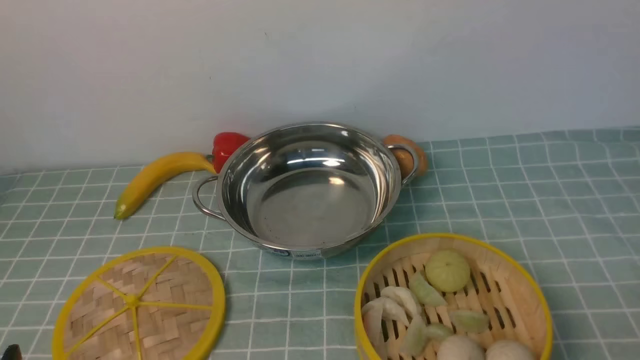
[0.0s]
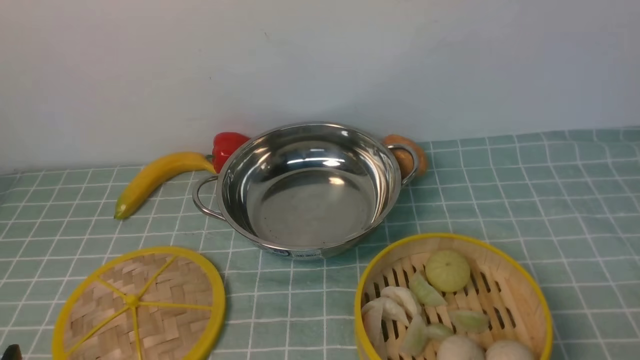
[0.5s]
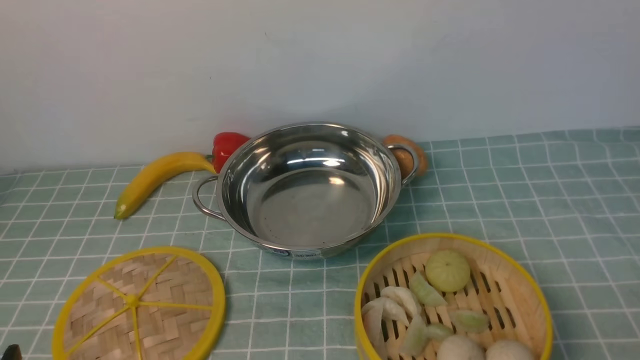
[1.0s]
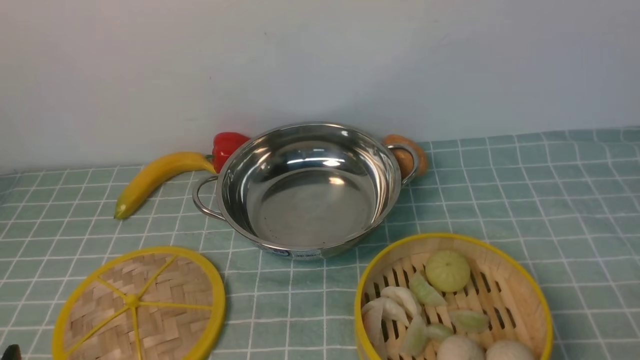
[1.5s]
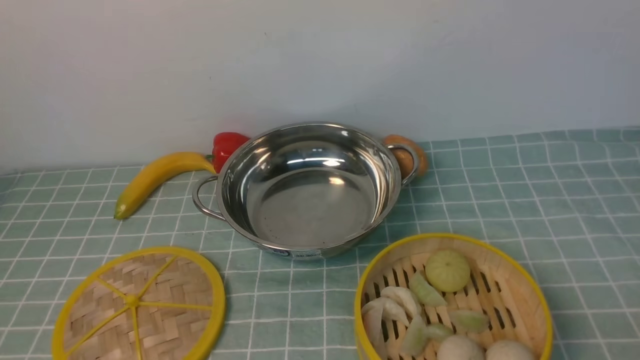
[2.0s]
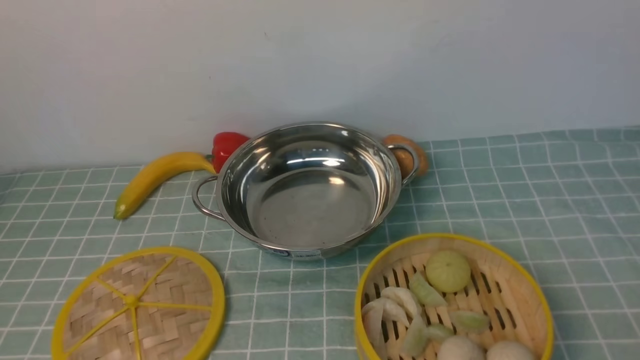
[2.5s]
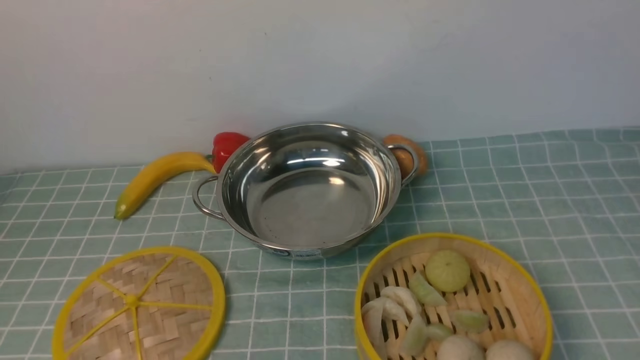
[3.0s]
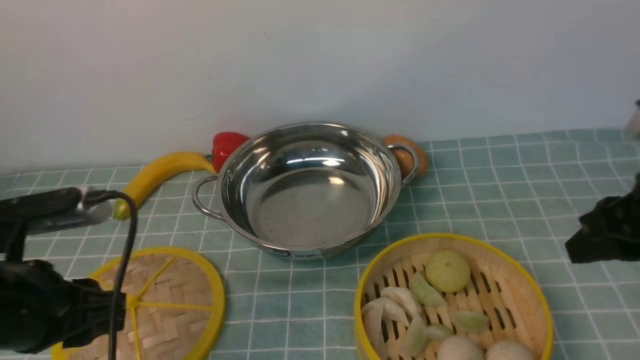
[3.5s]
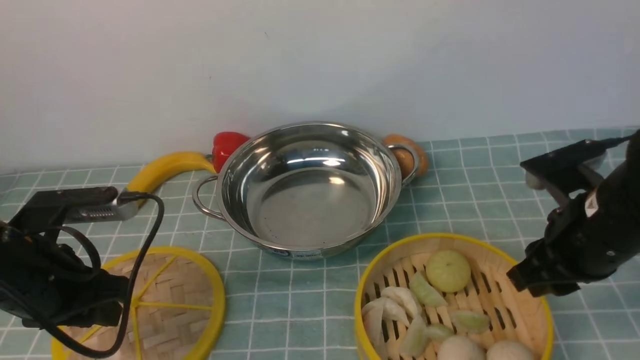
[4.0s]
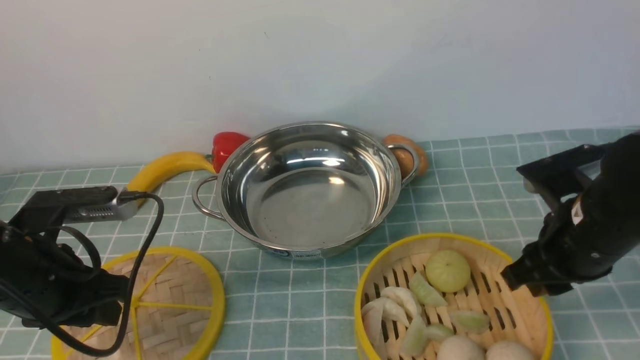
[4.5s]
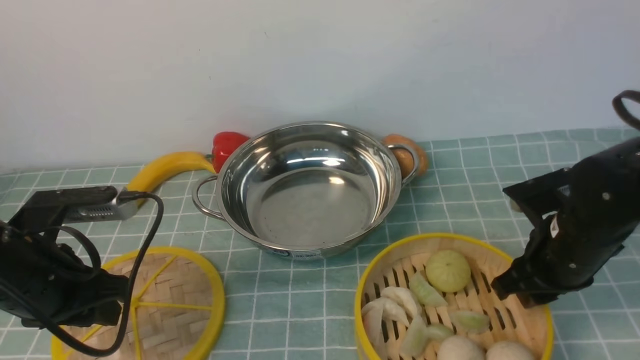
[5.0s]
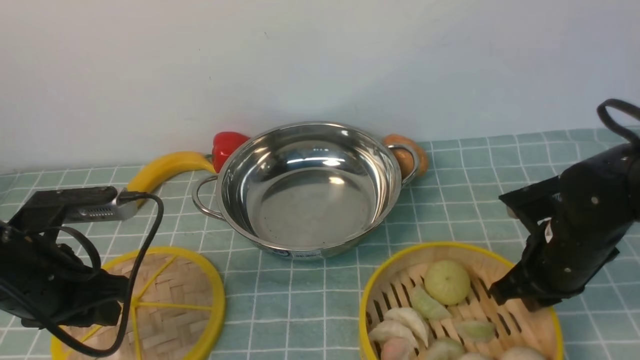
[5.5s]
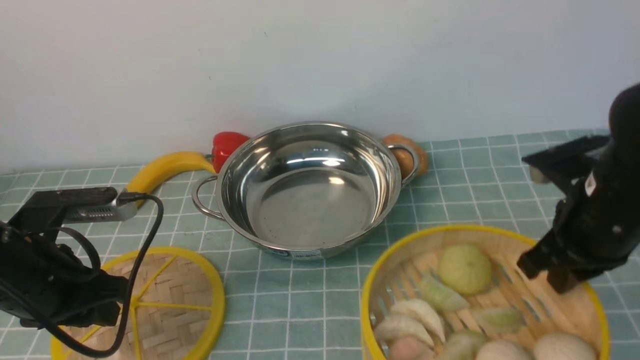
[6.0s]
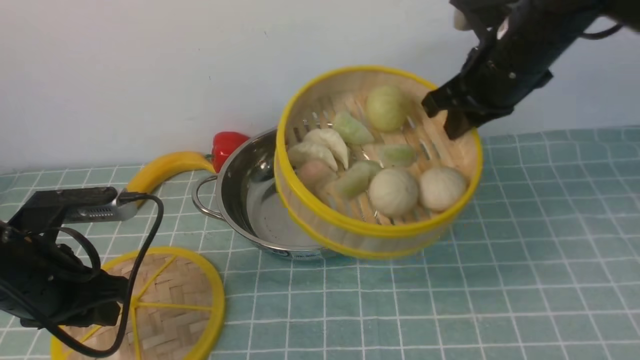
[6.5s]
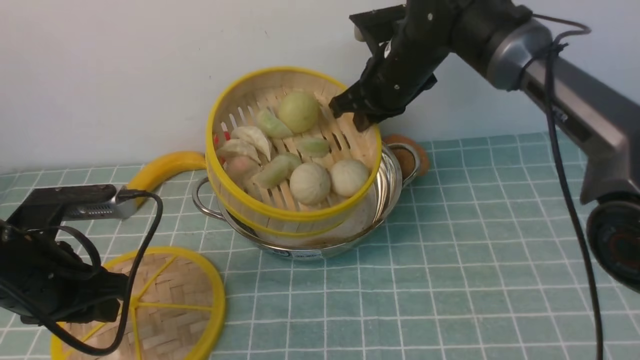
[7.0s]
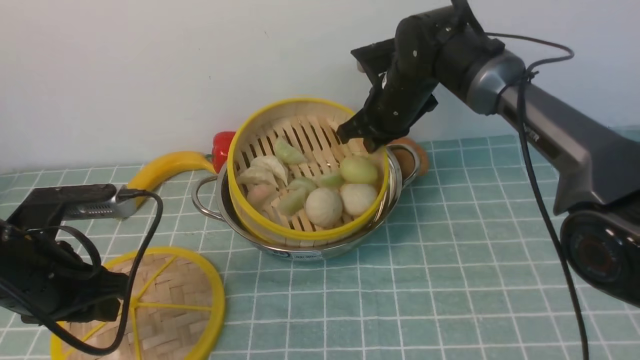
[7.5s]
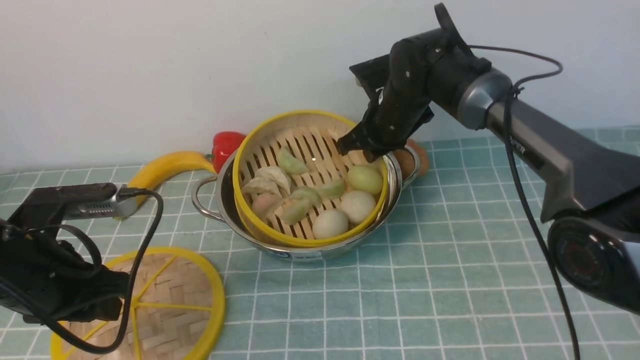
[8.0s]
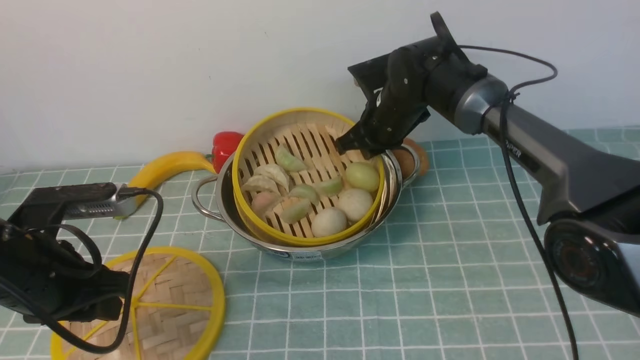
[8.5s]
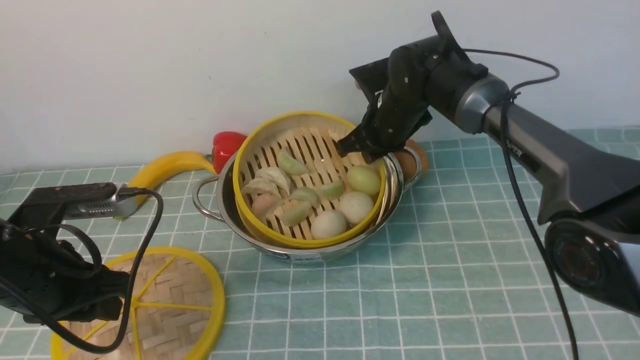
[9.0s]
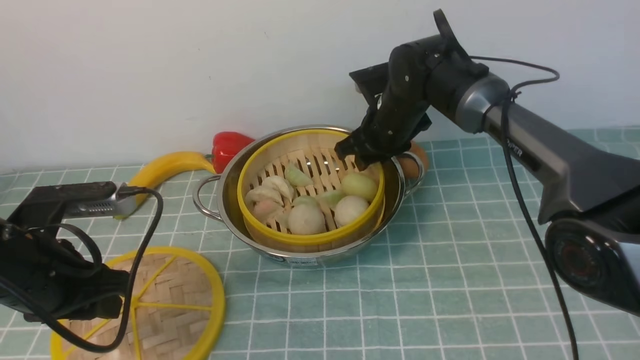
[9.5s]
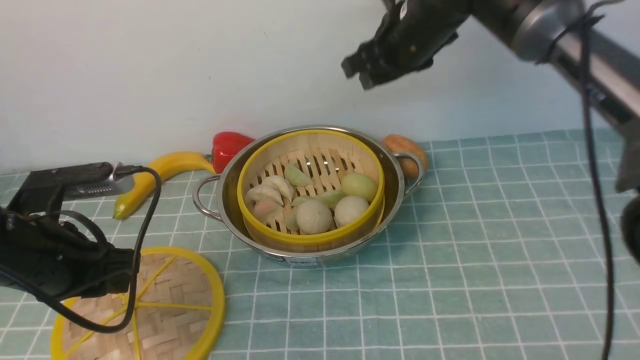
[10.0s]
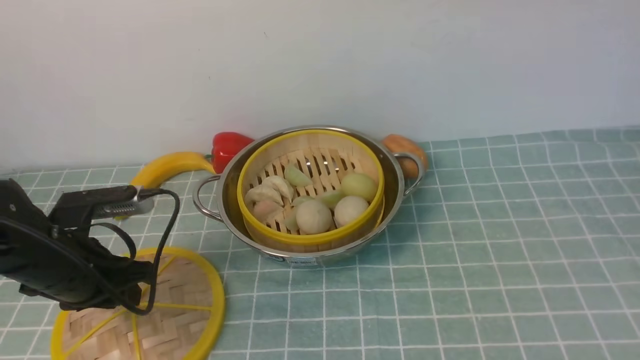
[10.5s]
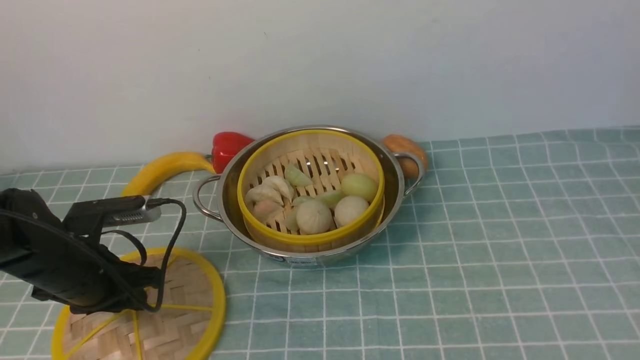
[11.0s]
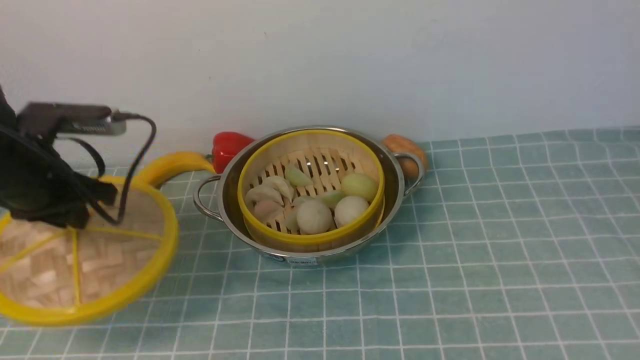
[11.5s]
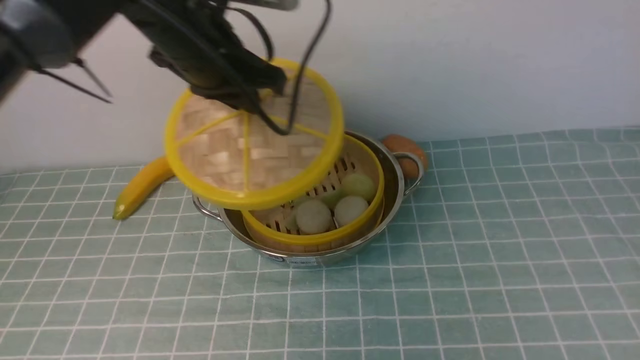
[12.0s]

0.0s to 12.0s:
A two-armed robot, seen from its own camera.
Task of the whole recording: place the steamer in the pot on the blue tablecloth, and put the lid on the steamer.
Step, 0.0s to 5.5s: use the right arm to lift the steamer closest to it.
Step, 6.0s to 10.0s: use the right arm to put the steamer into the iron steamer pot in the middle.
Step, 10.5s to 11.5s: use the left arm to lift the lid of the steamer.
2.0s to 4.0s: Both grippers move forward, approximately 20 cm.
4.0s to 6.0s: The right gripper travels downward and back again, approximately 5 cm each way, and closes.
6.0s to 8.0s: The right gripper goes approximately 25 cm forward and to the left.
8.0s to 10.0s: The right gripper heads upward, covering some 15 cm, and opens.
10.0s to 12.0s: The left gripper travels forward, to the right and upward by about 25 cm. The right gripper moves backward and to the right, roughly 50 cm.

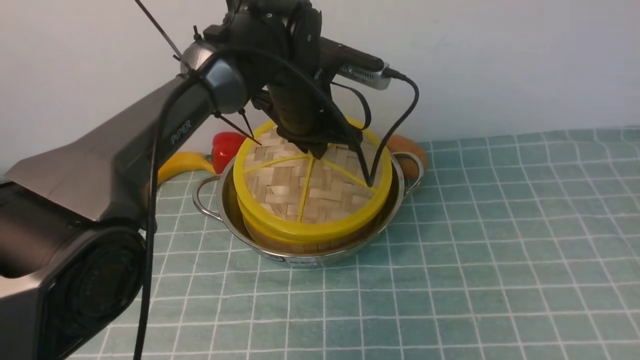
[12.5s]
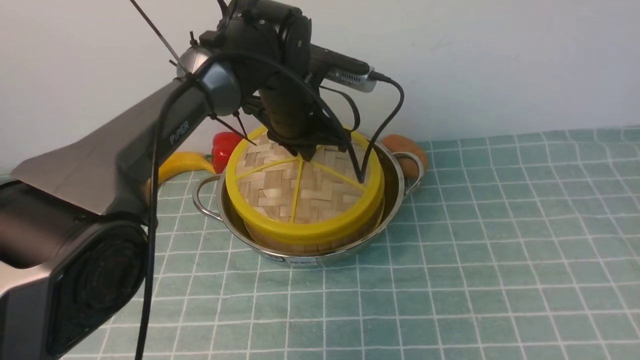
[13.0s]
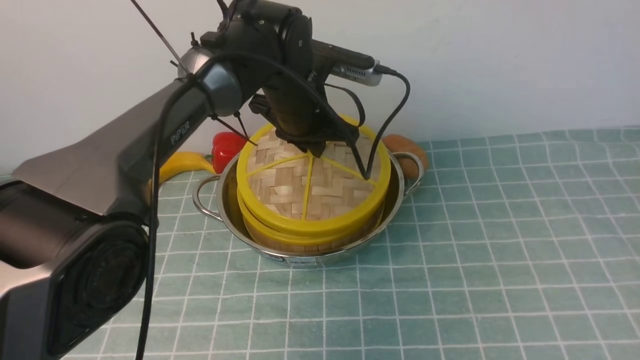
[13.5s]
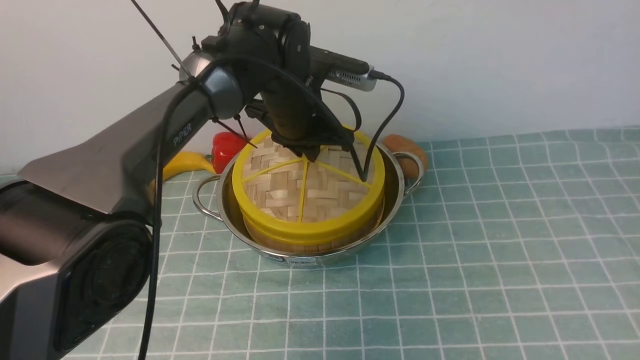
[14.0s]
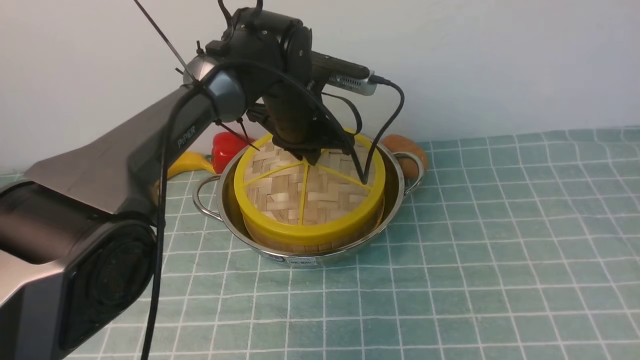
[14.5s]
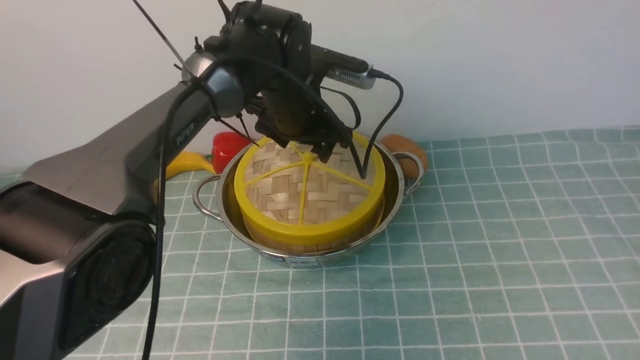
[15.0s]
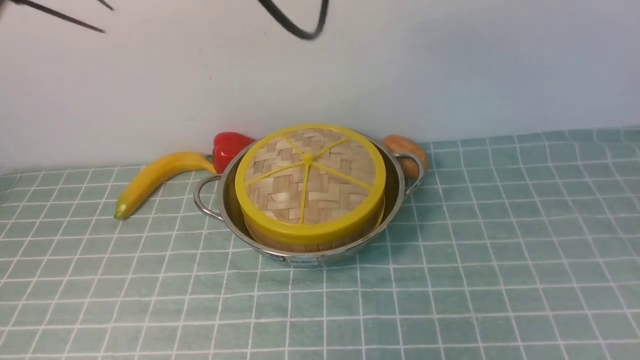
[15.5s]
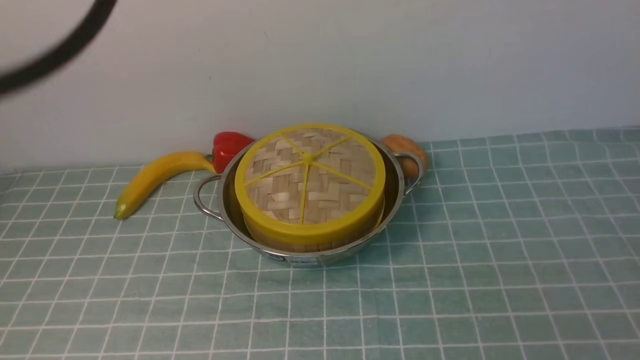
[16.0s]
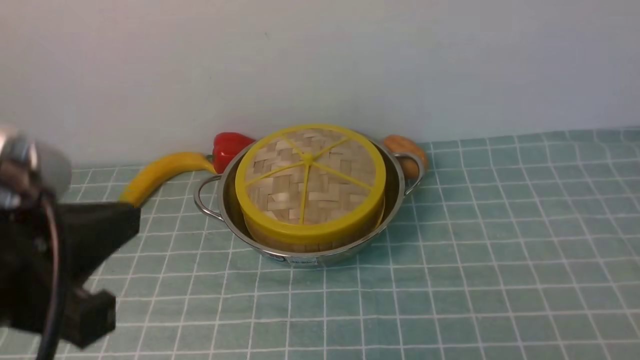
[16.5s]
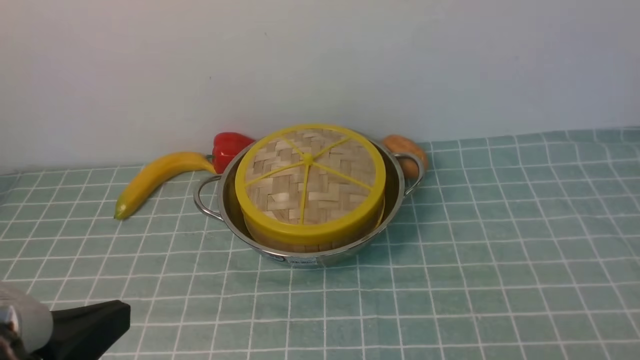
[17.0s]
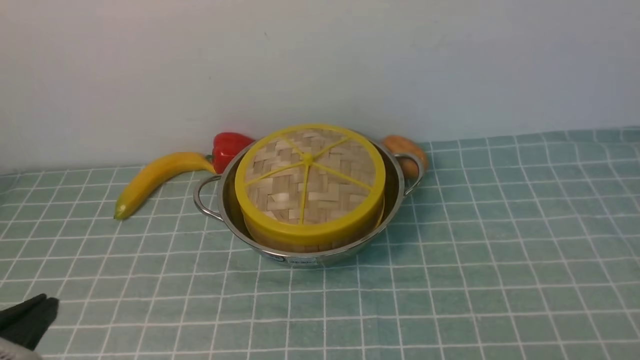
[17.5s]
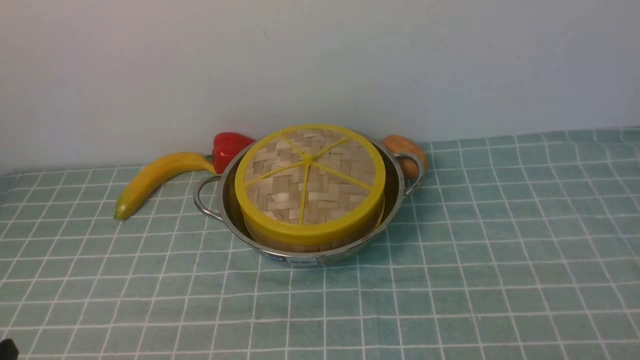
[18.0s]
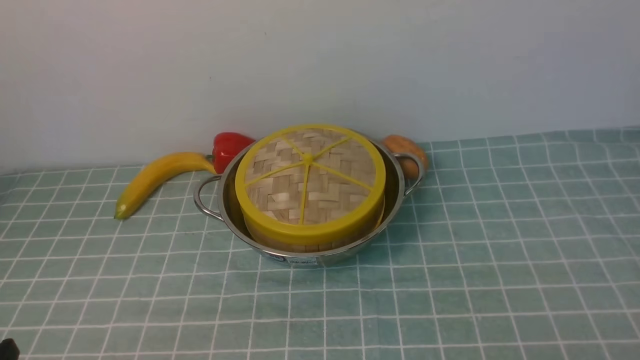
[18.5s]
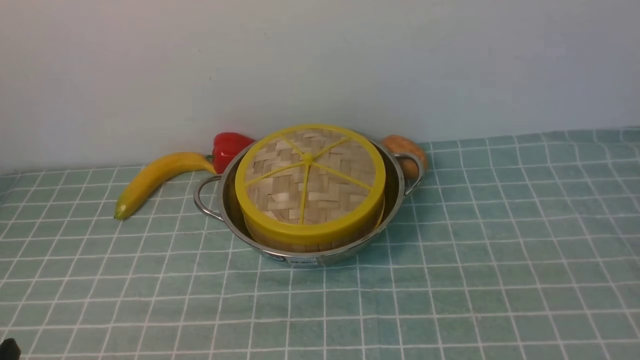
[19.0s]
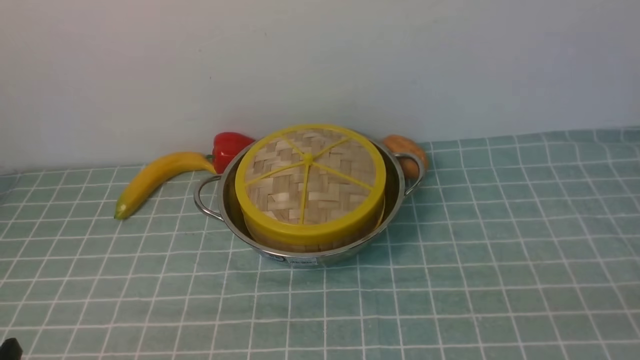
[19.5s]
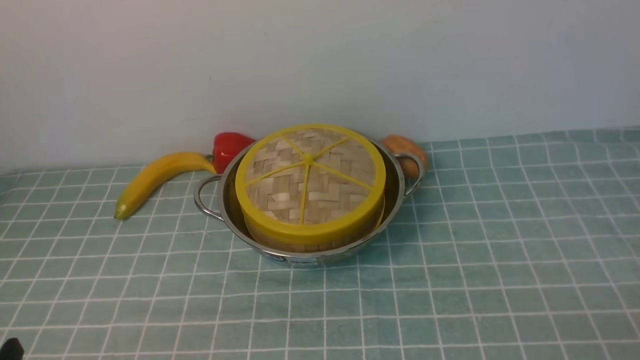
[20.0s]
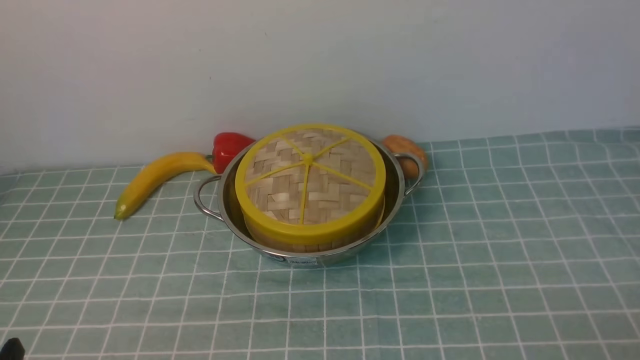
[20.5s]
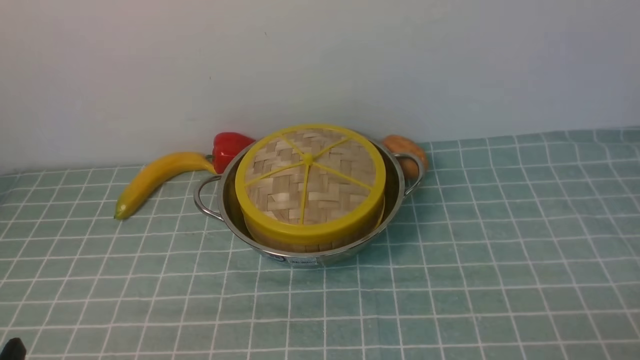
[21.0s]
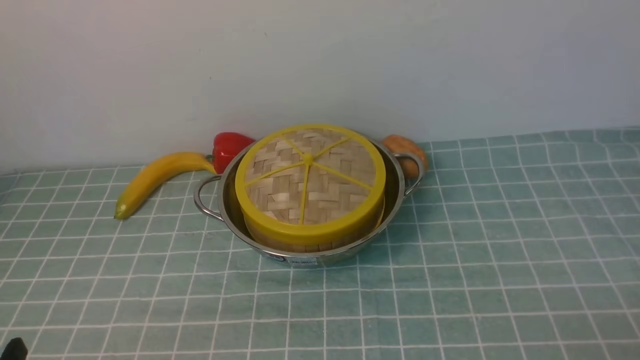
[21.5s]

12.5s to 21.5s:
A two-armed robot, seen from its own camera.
Task of the whole recording: place the steamer in the pot on the blue tablecloth, and put the lid on the steamer.
Step, 12.5s to 15.0s: use the left arm to place the steamer lid on the steamer.
12.5s to 14.5s: The grippers make only small movements.
14.5s to 17.0s: The right gripper goes roughly 20 cm downward, and closes up. Meanwhile the left gripper shifts approximately 40 cm backward and to the left, and opens, then closes once more.
17.0s to 19.5s: The left gripper heads downward, covering roughly 10 cm.
